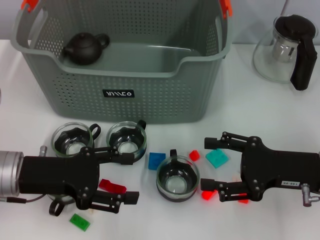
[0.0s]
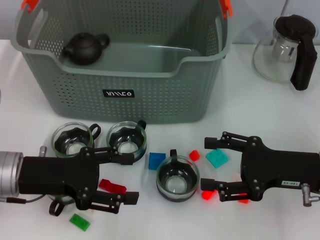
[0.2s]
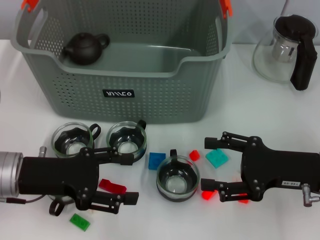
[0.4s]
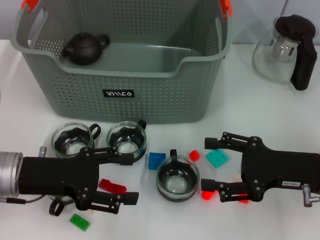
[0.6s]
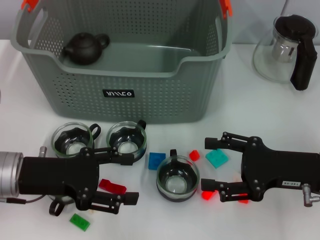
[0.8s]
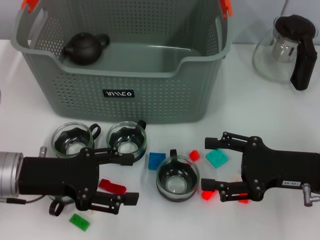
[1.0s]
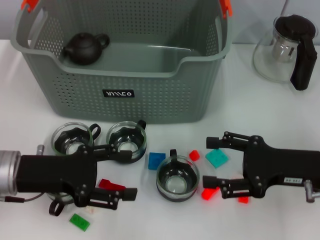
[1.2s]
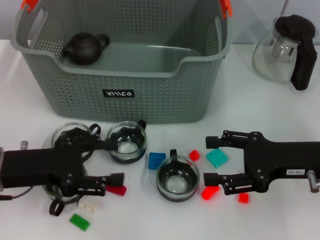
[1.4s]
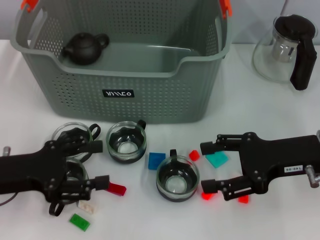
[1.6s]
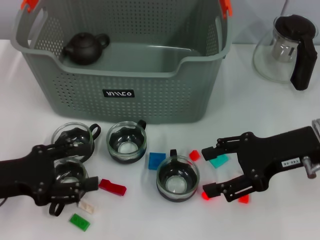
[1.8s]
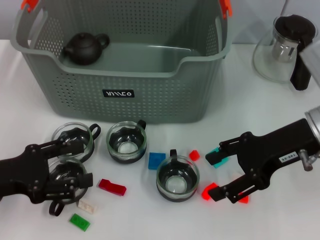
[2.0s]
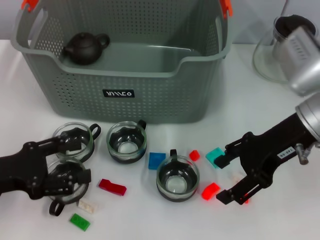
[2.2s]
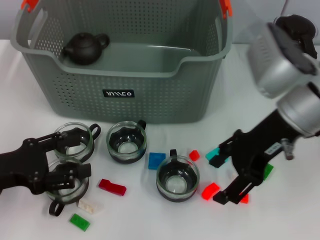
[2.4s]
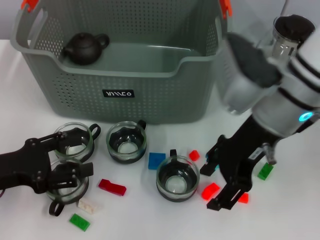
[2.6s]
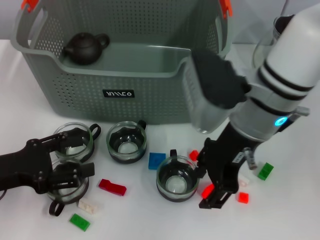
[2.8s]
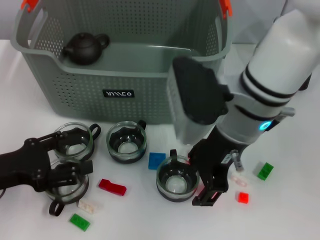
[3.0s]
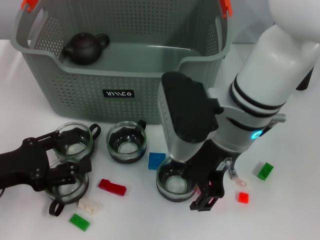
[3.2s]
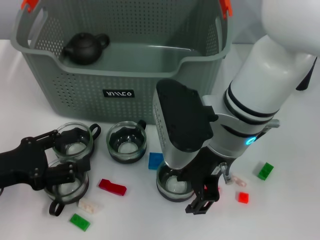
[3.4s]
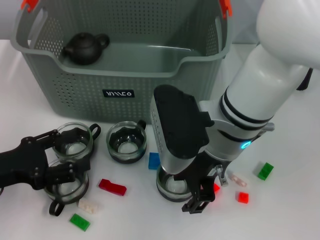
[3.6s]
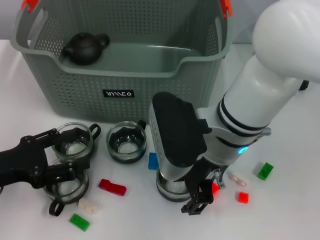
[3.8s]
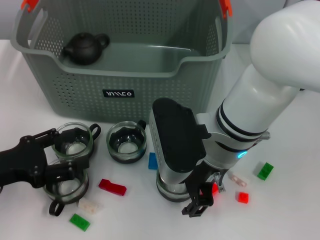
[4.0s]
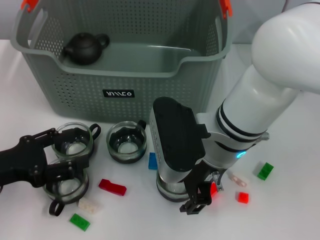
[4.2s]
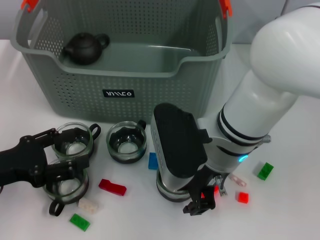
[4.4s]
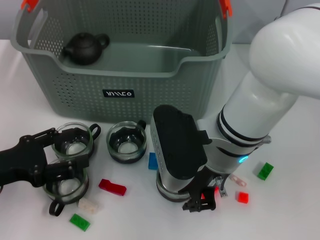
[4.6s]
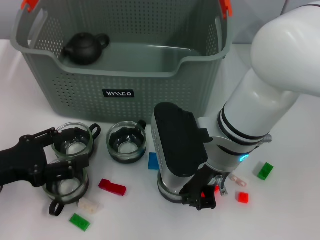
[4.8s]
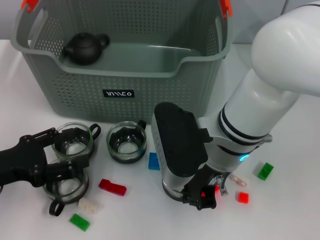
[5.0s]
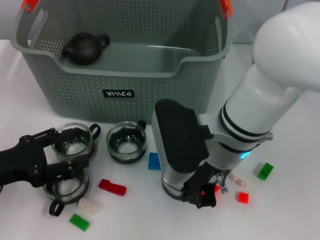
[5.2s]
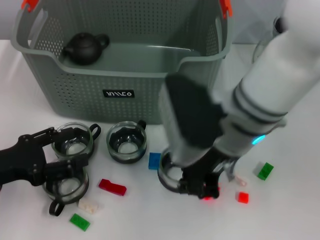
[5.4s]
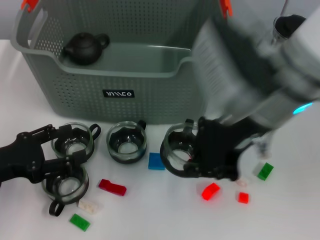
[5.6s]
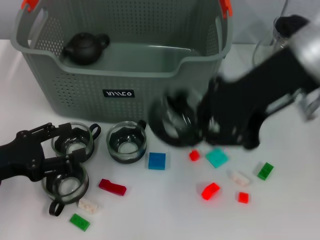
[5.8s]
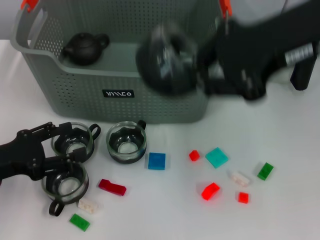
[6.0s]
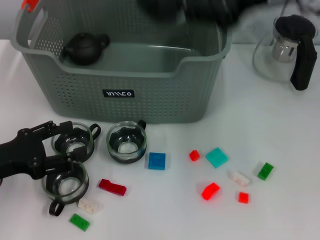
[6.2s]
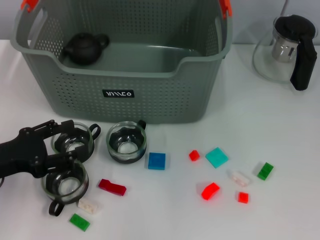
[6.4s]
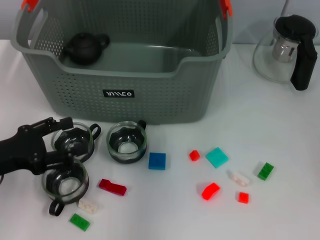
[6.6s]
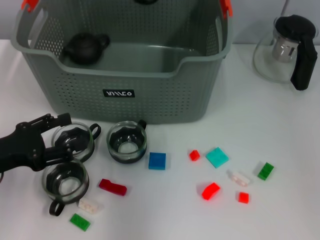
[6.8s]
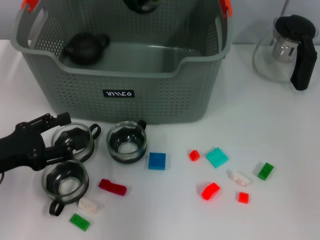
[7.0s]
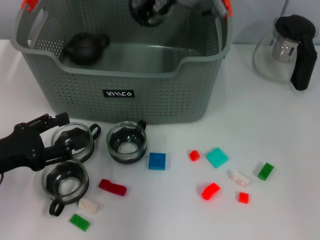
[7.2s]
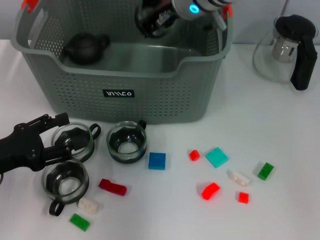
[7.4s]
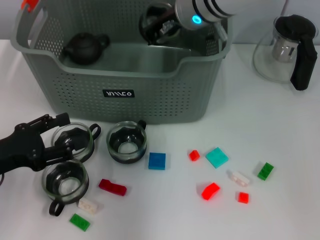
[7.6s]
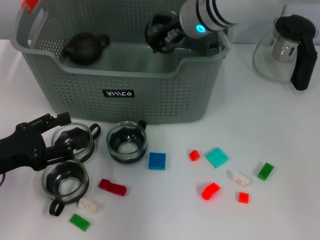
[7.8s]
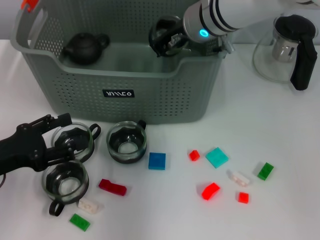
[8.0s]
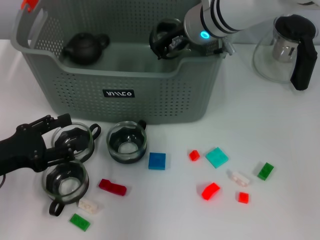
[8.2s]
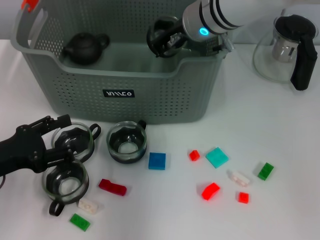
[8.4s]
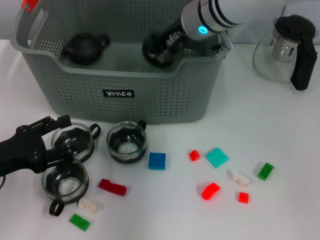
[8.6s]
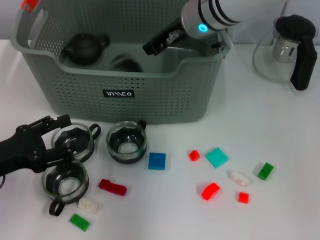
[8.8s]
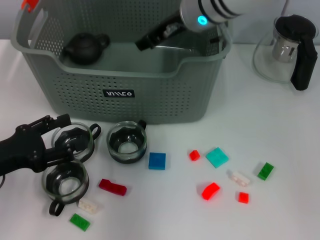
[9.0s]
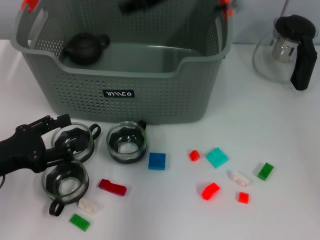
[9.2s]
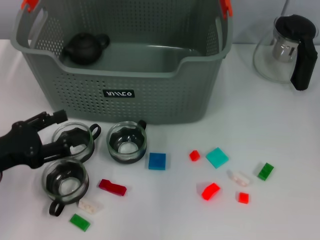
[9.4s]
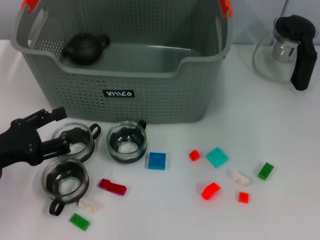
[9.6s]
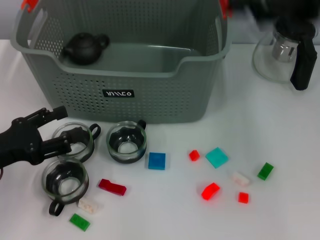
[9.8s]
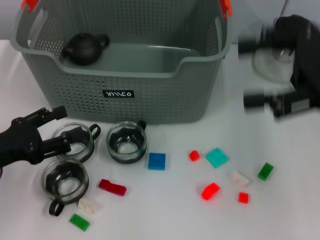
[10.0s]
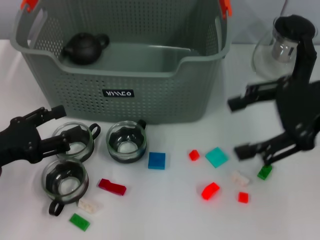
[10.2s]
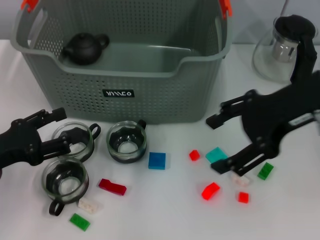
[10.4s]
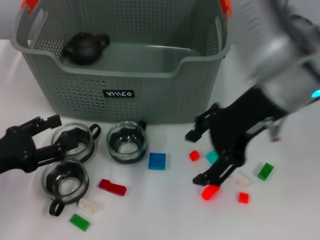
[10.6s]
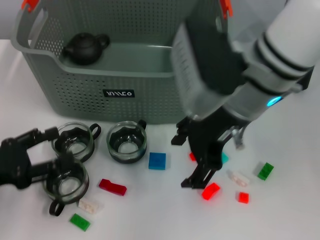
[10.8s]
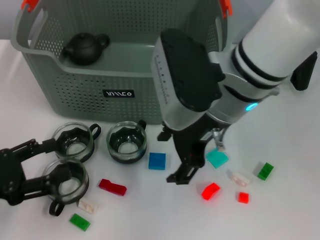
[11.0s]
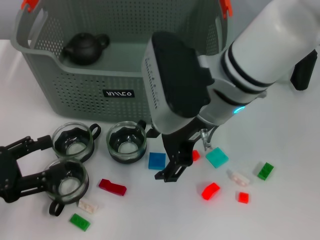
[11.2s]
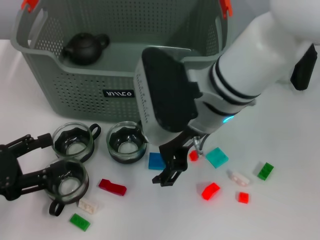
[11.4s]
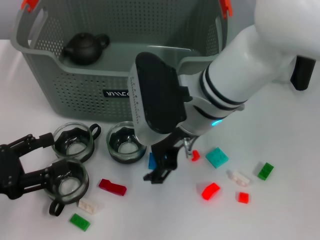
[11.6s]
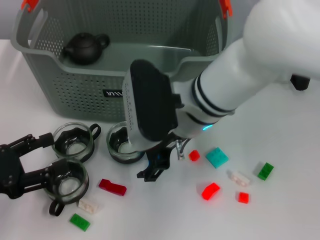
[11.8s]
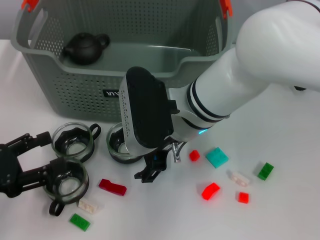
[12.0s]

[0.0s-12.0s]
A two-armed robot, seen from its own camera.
Task of the whole recording: pick up the teacup on the table and place it into the storage bin, pick up the block on the table and place it into the storage bin.
Step, 0.0s to 4.8s: Grasp the cup with right gripper.
Step, 5.2s to 8.6s: Place the cup in the storage box with right gripper.
0.0s to 1.6s: The grippers move only a little.
1.6s to 3.0s: The right gripper is displaced to the left and upward by some 15 cm.
3.0s to 4.4s: The right gripper ends up about 5 cm from where it was.
4.4s to 6.0s: The right gripper is displaced upward and to the right by approximately 20 cm, and closes its fingers.
6.0s to 7.6s: The right gripper heads forward, to the left and downward, covering approximately 20 cm.
7.6s to 9.0s: The right gripper opens.
9.0s to 10.4s: The right gripper is displaced to the right and backward by about 20 cm, and opens its fingers.
10.4s to 12.0s: The right gripper moves to the left and downward, about 20 cm.

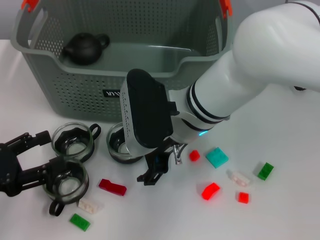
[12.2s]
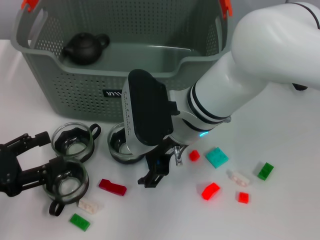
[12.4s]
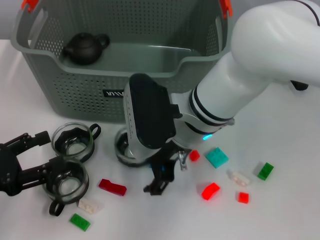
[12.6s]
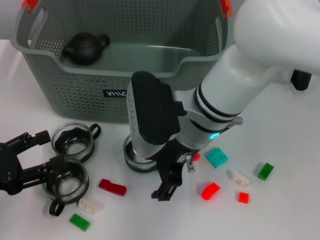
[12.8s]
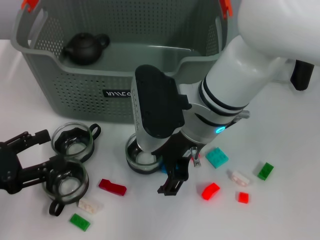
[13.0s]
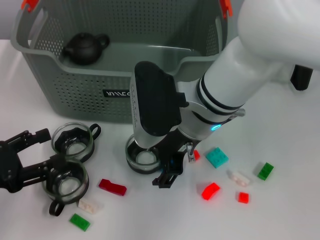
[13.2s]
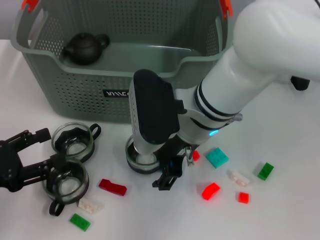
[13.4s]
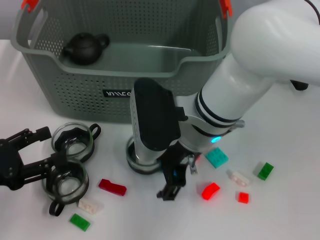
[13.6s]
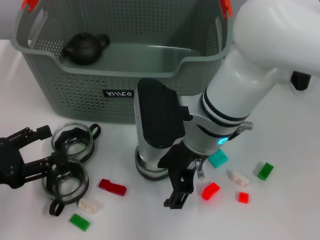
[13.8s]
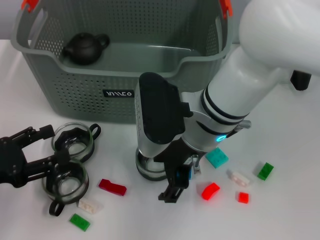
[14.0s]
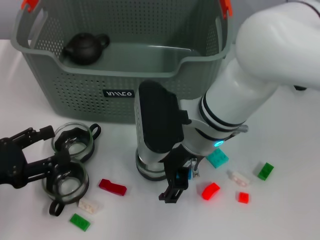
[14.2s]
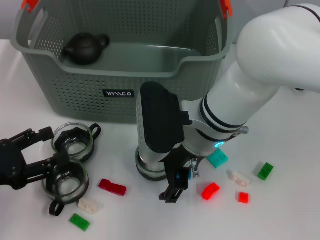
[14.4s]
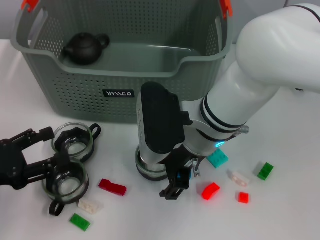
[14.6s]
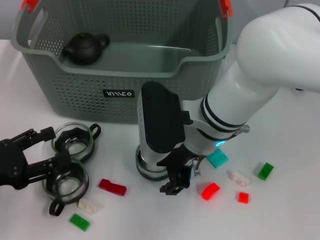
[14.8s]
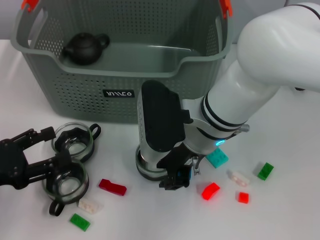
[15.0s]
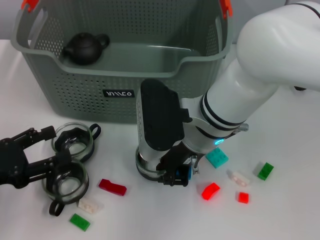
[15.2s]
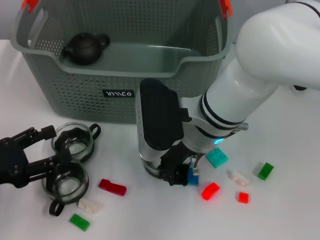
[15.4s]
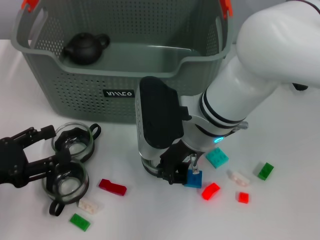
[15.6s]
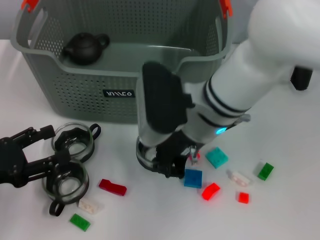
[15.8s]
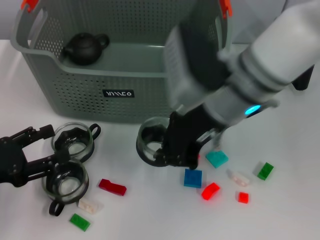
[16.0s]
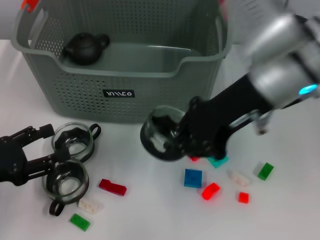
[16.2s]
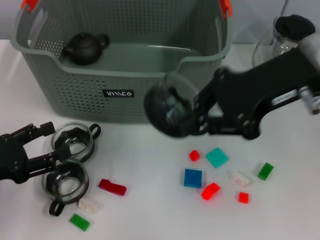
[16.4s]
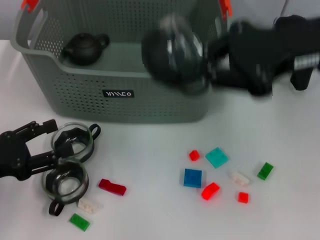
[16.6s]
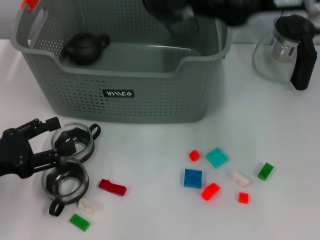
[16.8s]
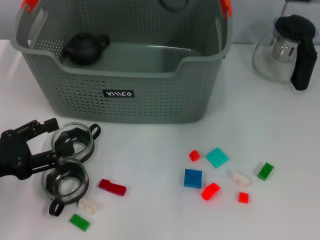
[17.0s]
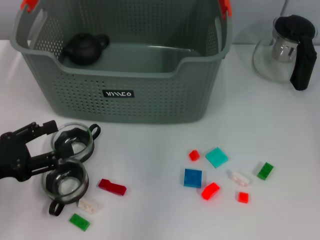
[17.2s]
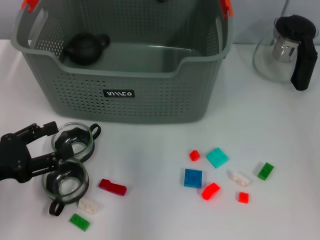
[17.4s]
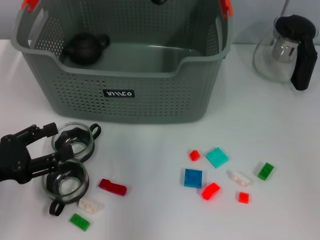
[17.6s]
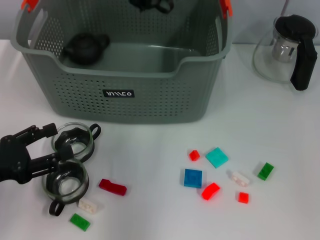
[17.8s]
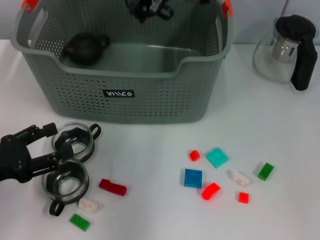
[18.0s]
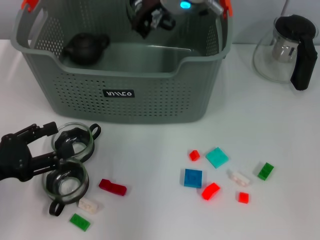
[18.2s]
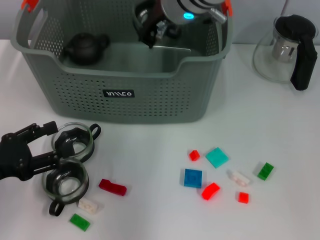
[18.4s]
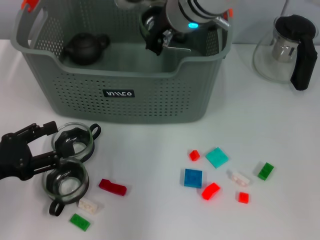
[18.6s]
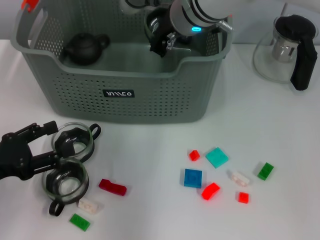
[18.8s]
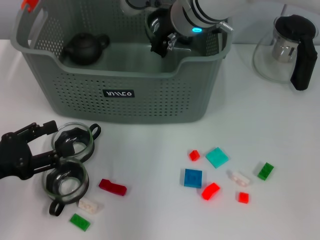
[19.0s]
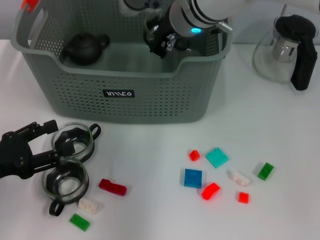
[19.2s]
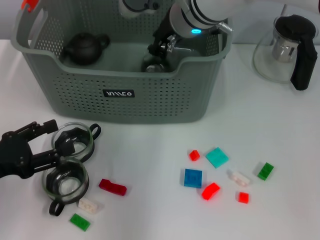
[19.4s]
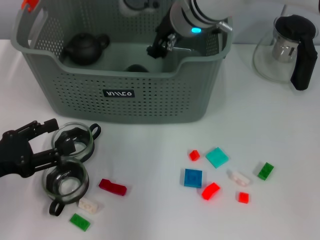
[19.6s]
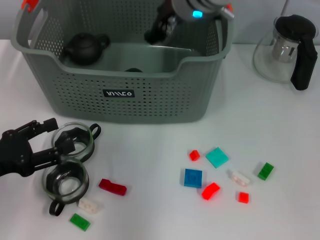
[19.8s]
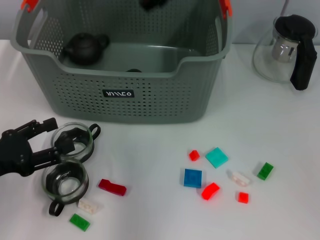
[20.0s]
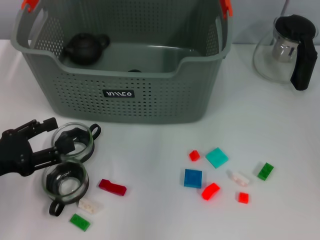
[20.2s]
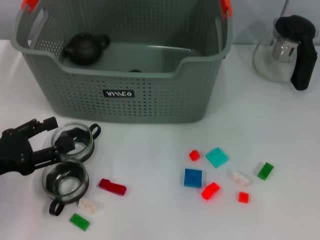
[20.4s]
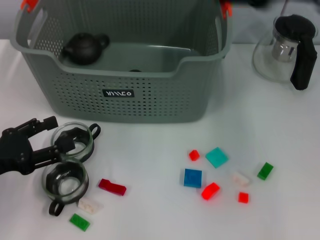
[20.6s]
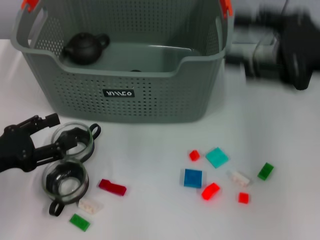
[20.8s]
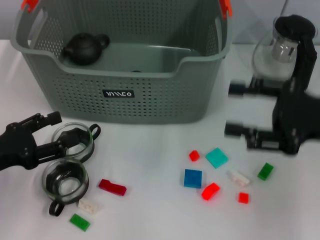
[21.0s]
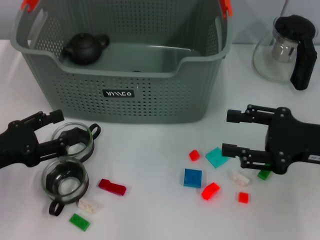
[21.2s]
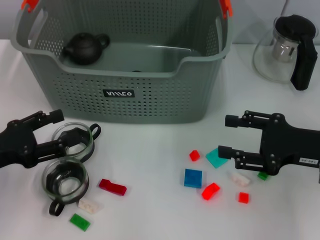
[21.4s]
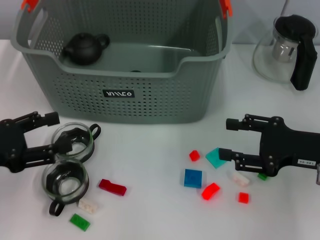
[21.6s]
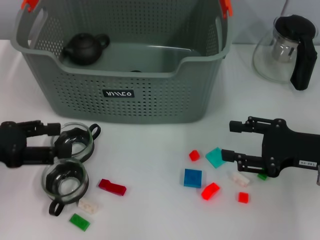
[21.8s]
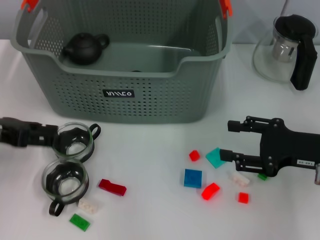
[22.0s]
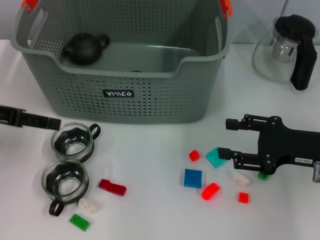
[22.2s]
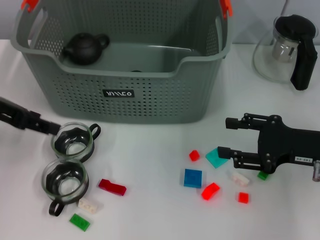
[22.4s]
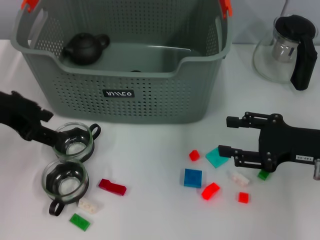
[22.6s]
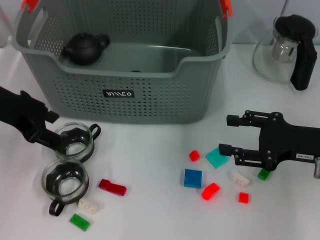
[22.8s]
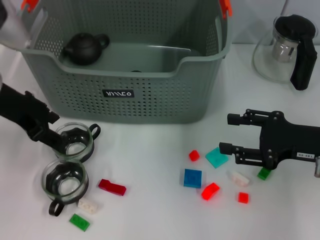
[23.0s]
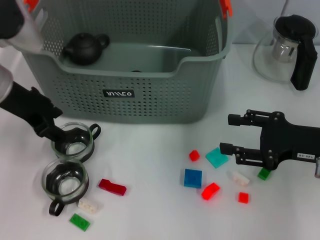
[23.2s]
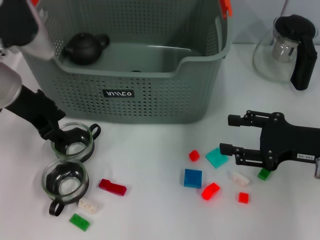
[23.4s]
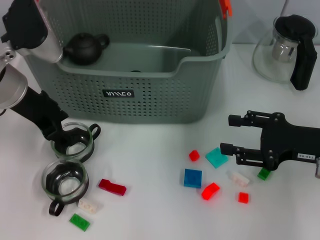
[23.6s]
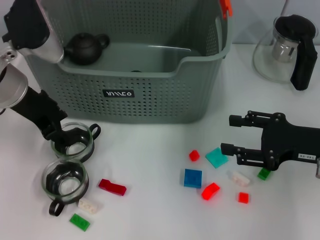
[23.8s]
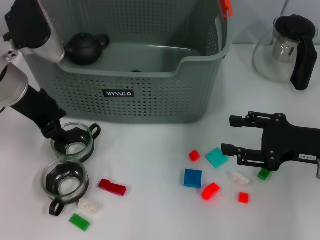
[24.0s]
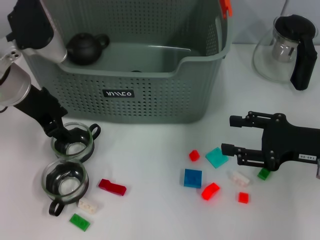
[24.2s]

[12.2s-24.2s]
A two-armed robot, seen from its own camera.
Task of the whole recording: pick up the teacup on the table and place it into the storage bin, pick up the block on the table and place it into the storage bin.
Step, 12.2s to 15.4s: Grasp the cup with right gripper.
Step, 15.6s to 19.4s: Place the cup in the storage box with right gripper.
12.2s to 13.8s: The grippers make only small movements.
13.8s to 15.2s: The right gripper closes its fingers.
15.2s to 16.6s: The right gripper travels to the right and upward by roughly 20 cm.
16.6s to 18.2s: The right gripper travels to the left and forward by roughly 20 cm.
18.2s to 19.8s: The right gripper opens its fingers.
19.8s to 21.2s: The right gripper is displaced to the right, backward and downward by about 30 cm.
21.2s to 22.6s: The left gripper shifts some 15 cm upward and forward.
22.6s to 24.2s: The left gripper ends up some 5 cm from where it was.
